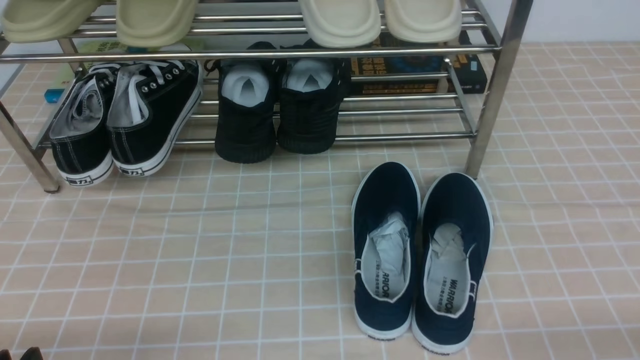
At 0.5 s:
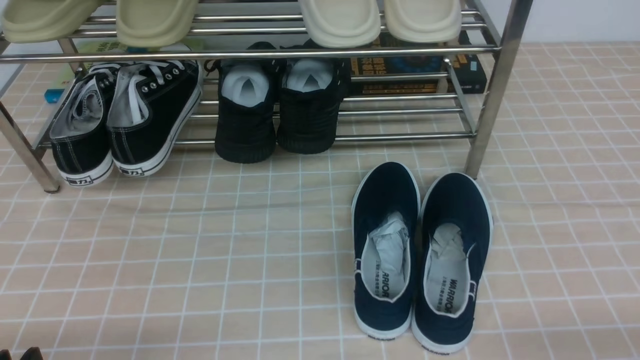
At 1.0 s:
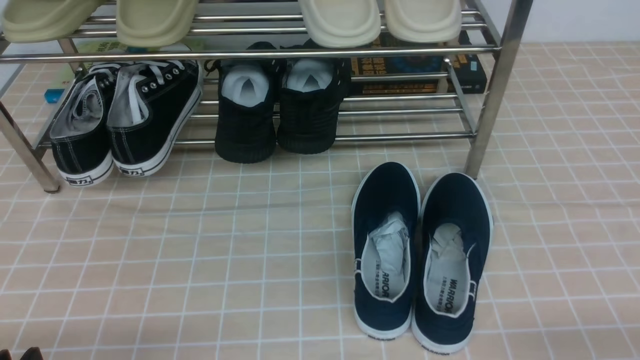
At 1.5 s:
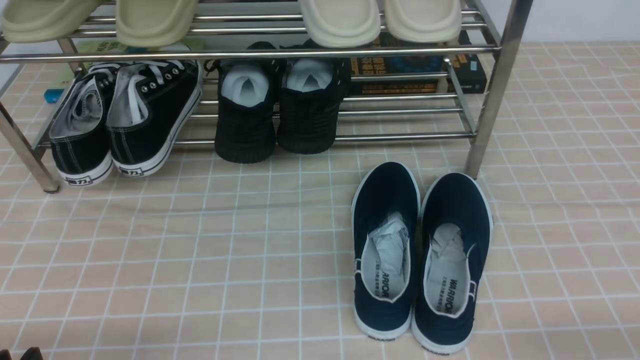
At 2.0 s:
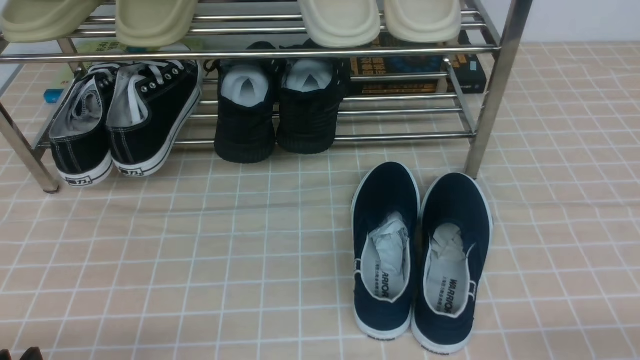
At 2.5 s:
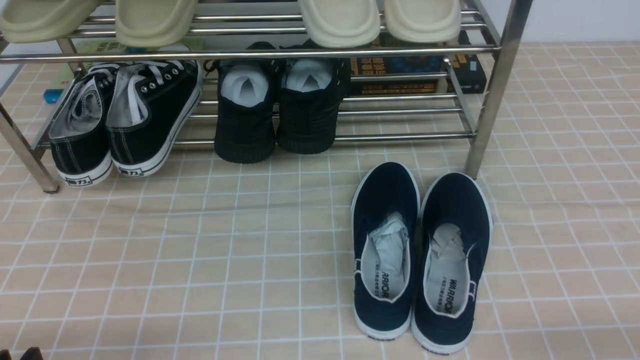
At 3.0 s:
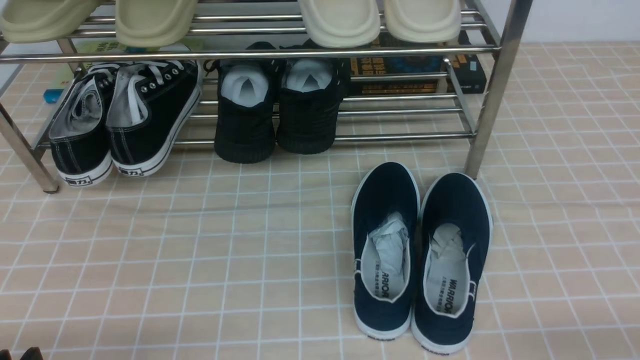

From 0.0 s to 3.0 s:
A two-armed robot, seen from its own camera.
From 0.0 s to 3.0 s: Both grippers stay put.
